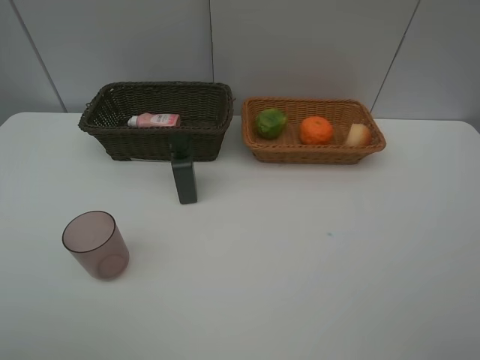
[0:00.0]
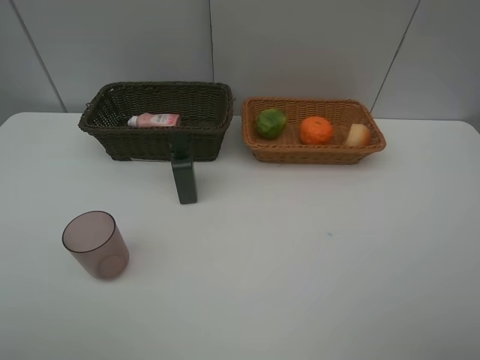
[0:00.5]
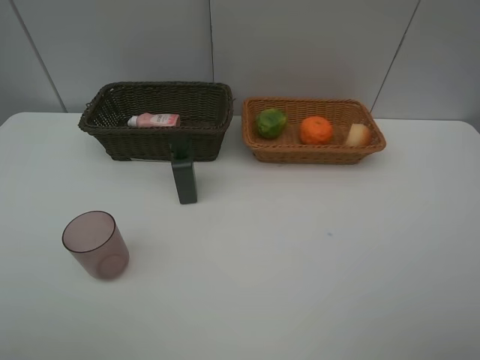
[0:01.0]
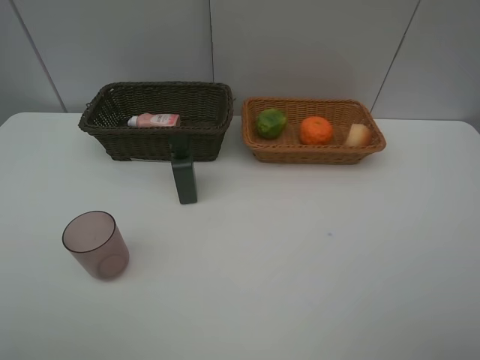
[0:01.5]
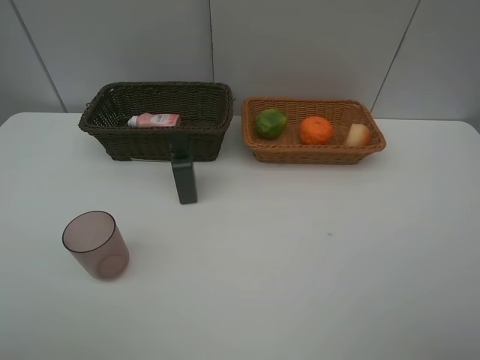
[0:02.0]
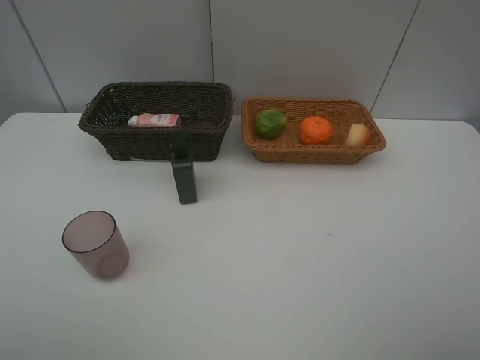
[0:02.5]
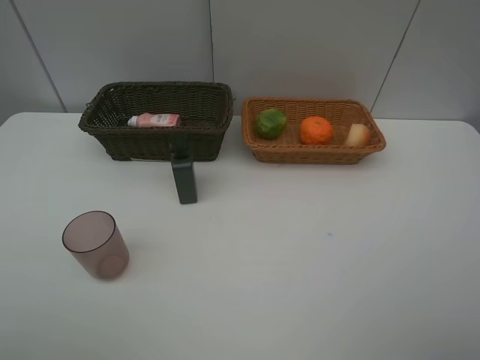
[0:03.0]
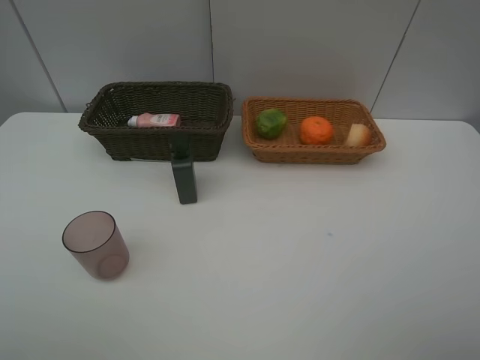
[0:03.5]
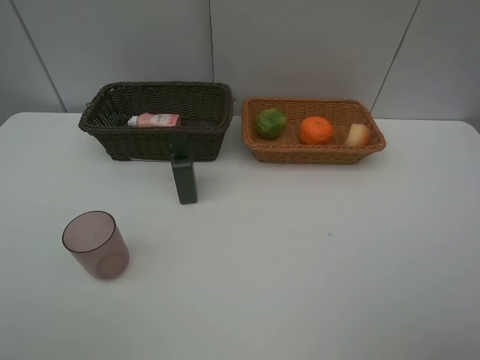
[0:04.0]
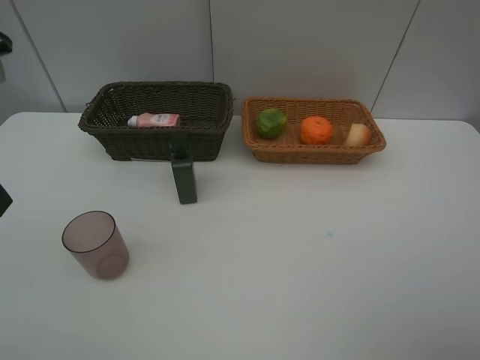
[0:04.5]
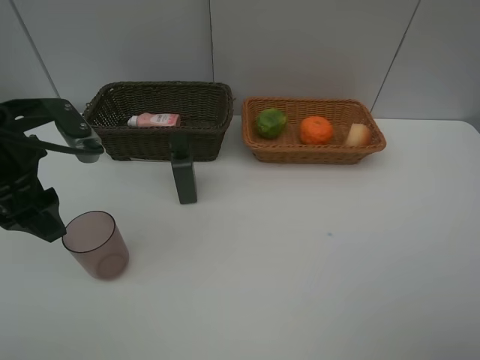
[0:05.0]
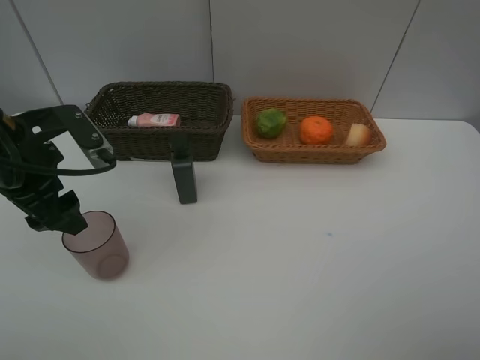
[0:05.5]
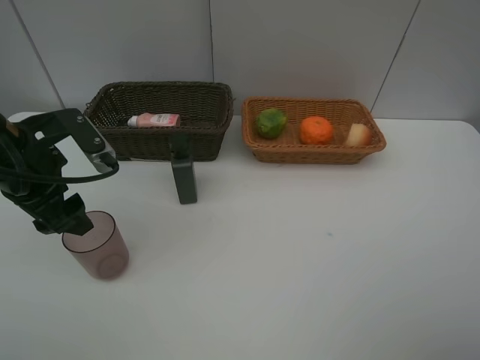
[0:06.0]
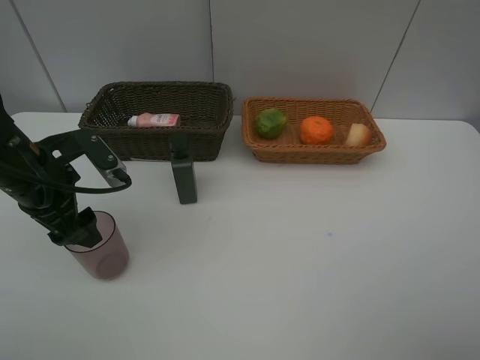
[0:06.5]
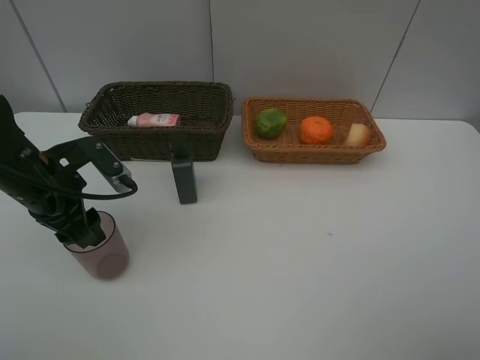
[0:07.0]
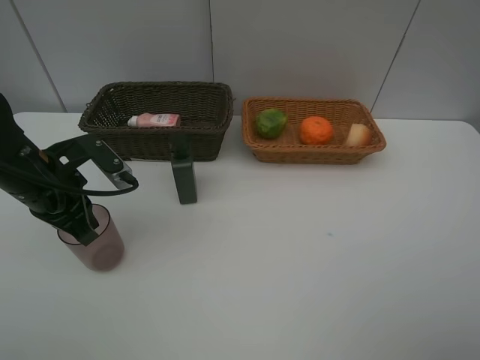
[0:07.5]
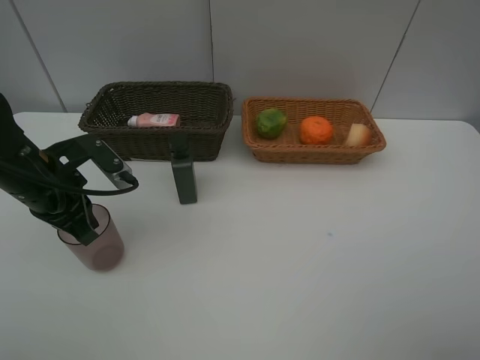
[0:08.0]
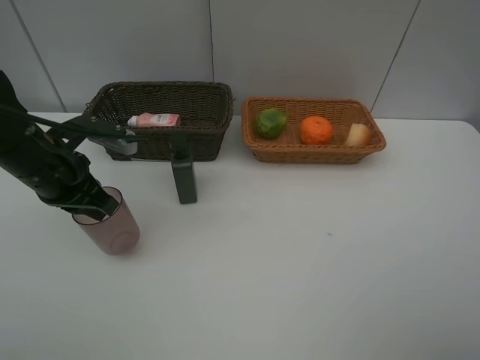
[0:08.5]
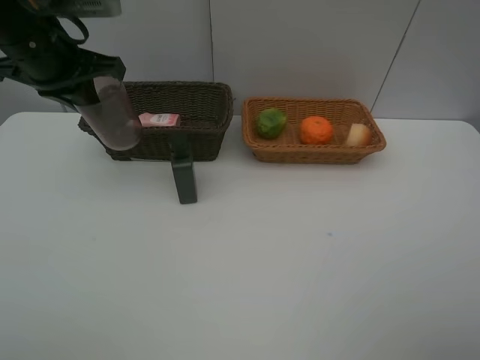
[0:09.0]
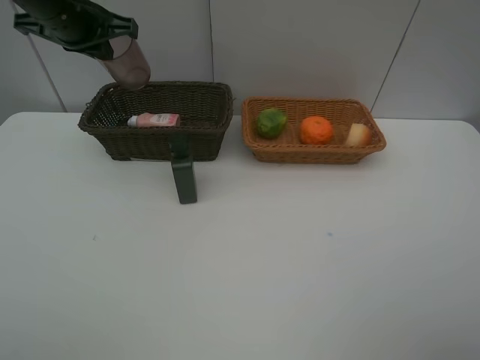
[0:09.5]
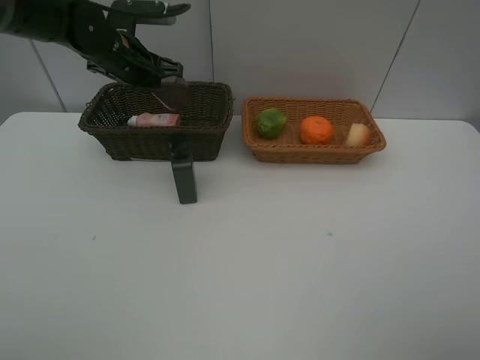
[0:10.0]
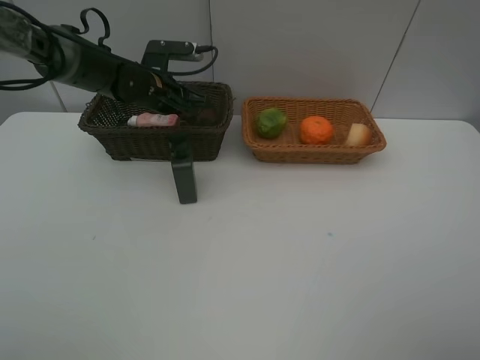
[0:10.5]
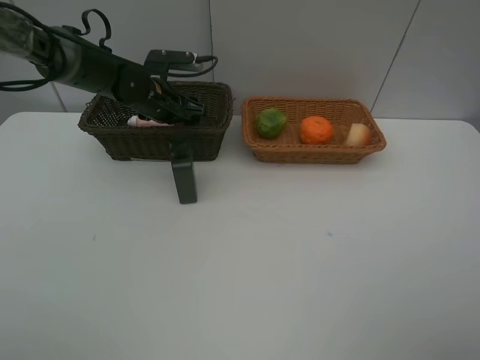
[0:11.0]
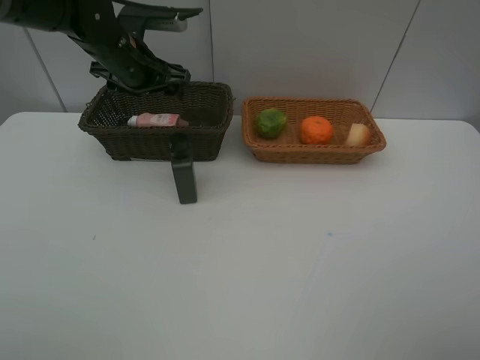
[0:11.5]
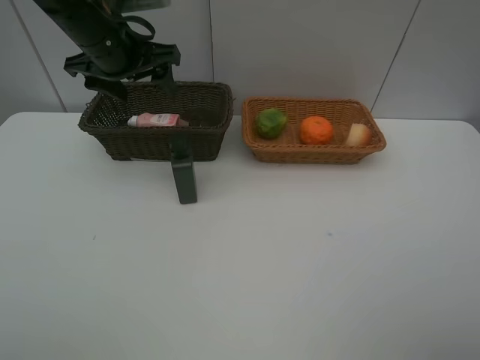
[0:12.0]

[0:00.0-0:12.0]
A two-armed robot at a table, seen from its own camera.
Task of the whole recording: place multiple objects separately in different baskets.
0:04.0 to 0:06.0: The left gripper goes about 20 cm forward and downward.
0:06.0 to 0:08.0: The left gripper closes its fingers.
0:08.0 to 0:10.0: The left gripper heads forward, covering about 20 cm.
0:10.0 to 0:12.0: The left gripper travels backward and upward by approximately 10 cm, and opens up.

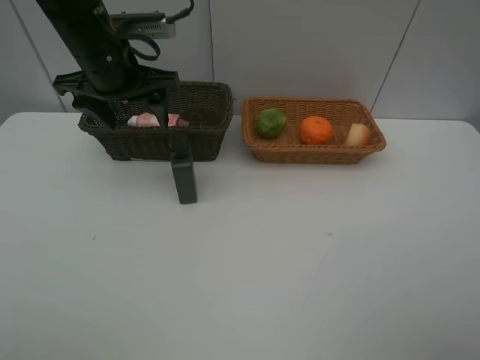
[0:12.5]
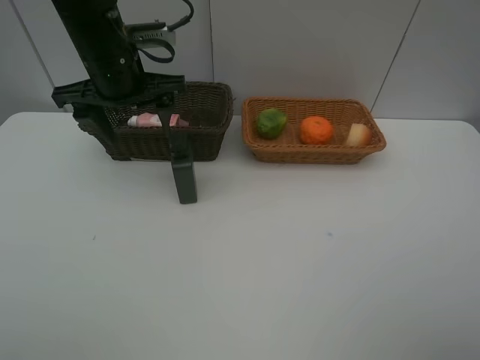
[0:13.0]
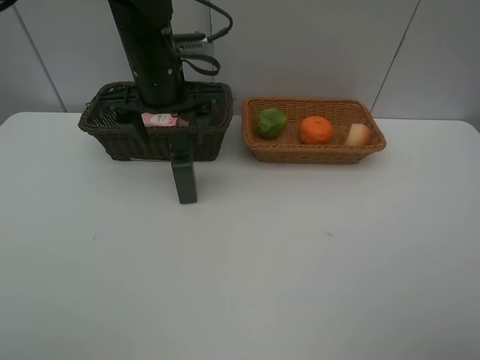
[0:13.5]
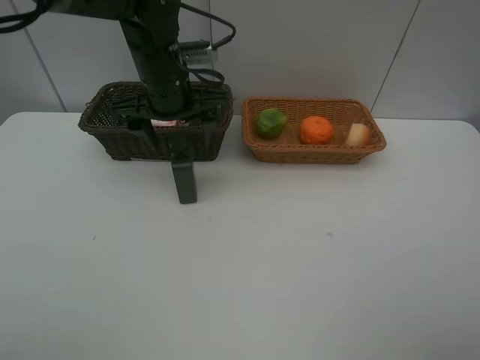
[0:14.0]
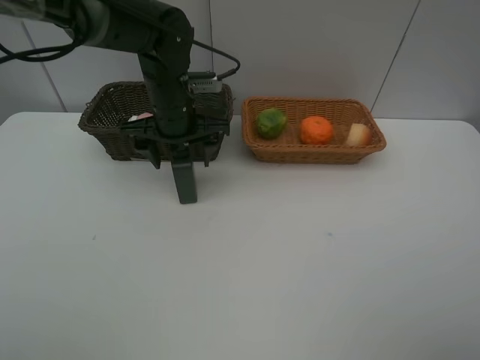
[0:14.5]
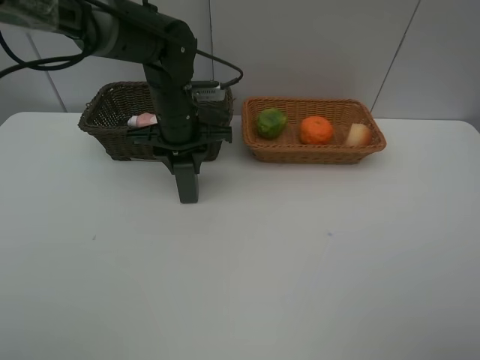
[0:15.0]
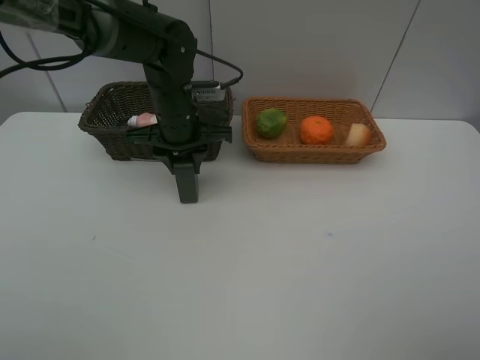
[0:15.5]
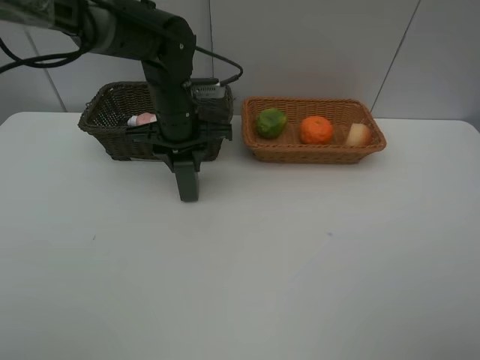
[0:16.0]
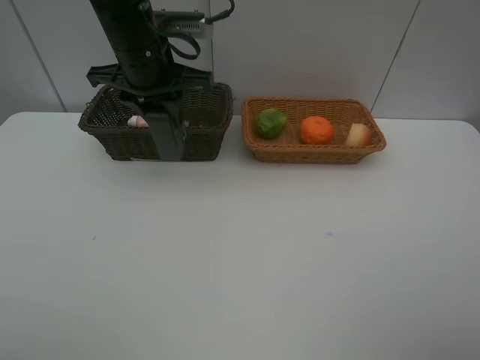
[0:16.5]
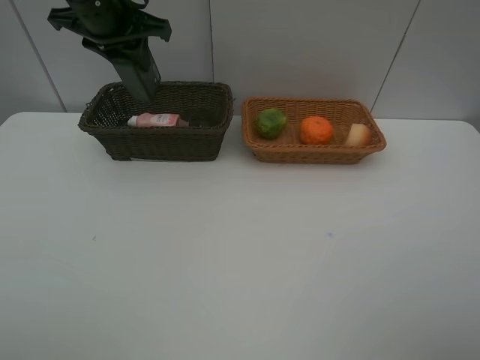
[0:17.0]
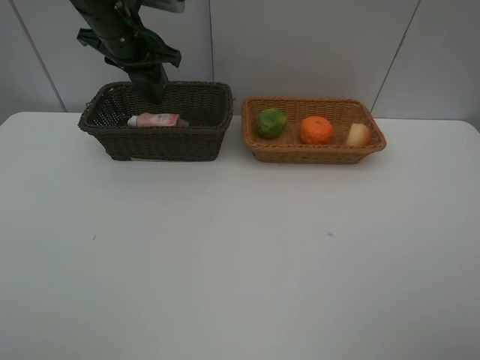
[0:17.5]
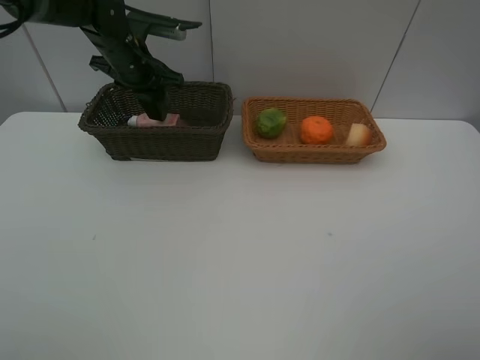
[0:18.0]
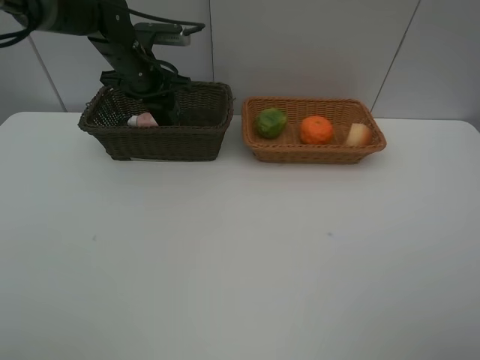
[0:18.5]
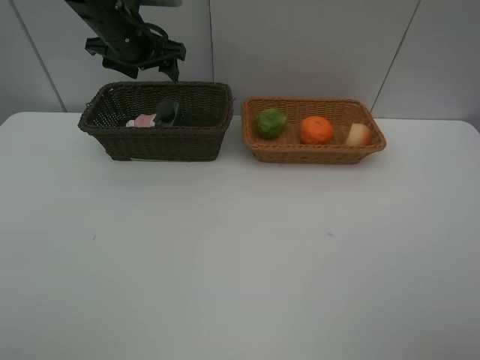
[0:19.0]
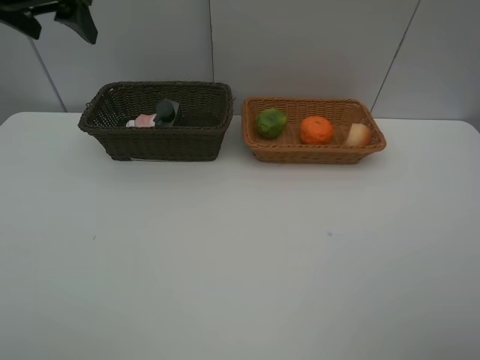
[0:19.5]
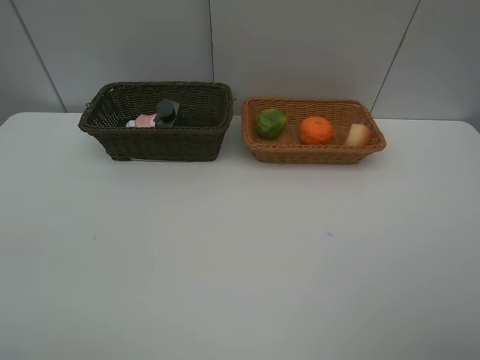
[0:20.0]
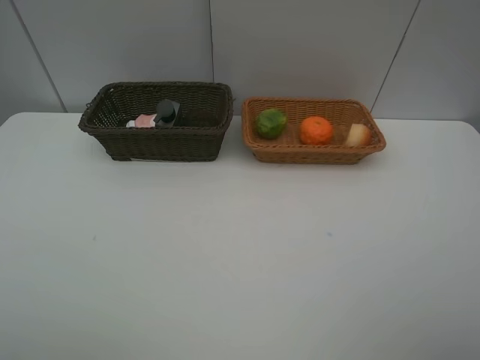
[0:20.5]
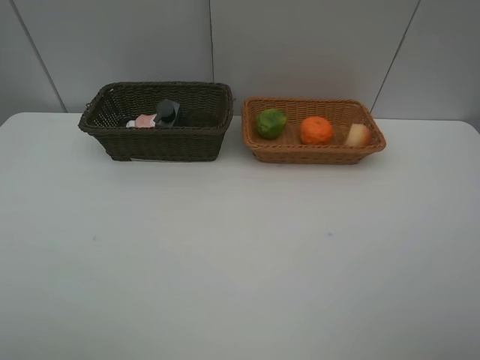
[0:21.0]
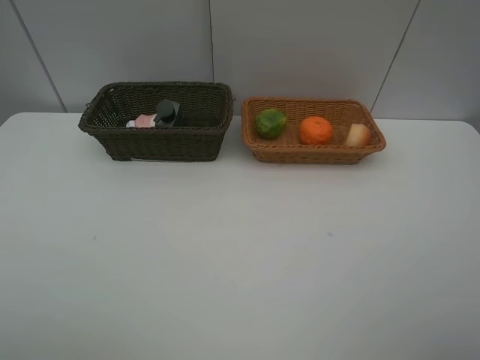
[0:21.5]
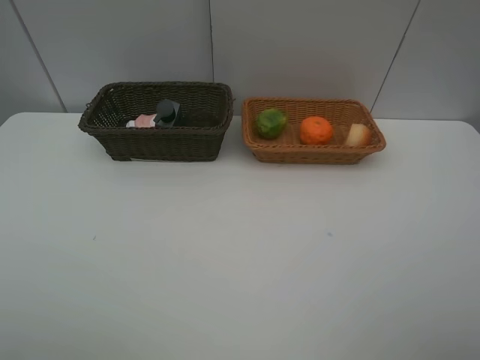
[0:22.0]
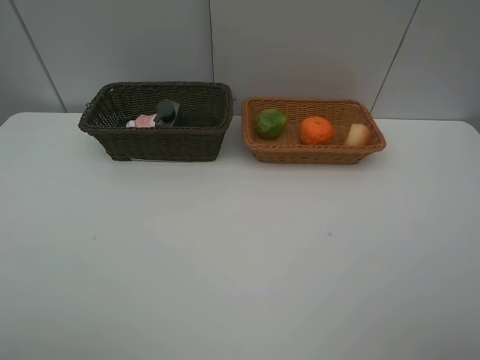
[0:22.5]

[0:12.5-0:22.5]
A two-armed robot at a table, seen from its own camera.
Task of the whole recording: place multiple objects separately in different baskets.
0:12.5 to 0:14.5: The left gripper travels downward and to the right by roughly 10 cm.
0:14.5 to 0:16.5: The left gripper moves upward, about 10 cm, and closes up.
0:16.5 to 0:18.5: The left gripper heads forward and downward, covering roughly 15 cm.
0:18.5 to 0:20.5: The left gripper travels backward by roughly 50 cm, and opens up.

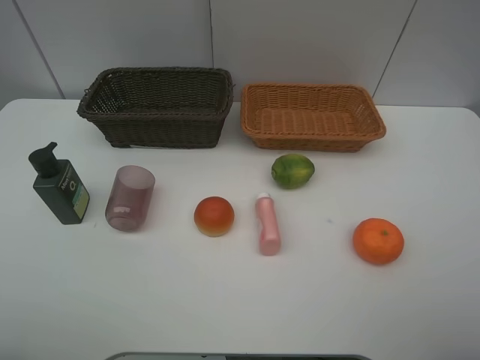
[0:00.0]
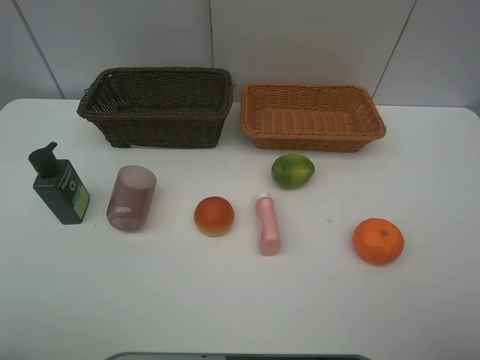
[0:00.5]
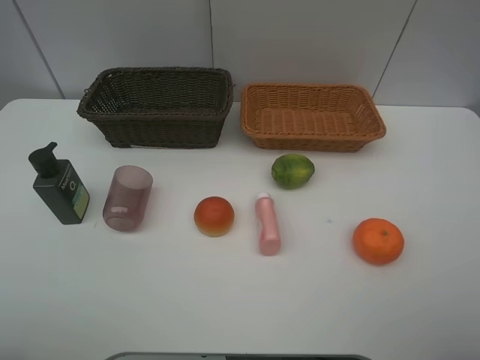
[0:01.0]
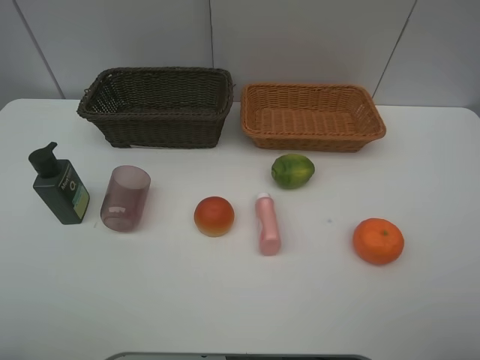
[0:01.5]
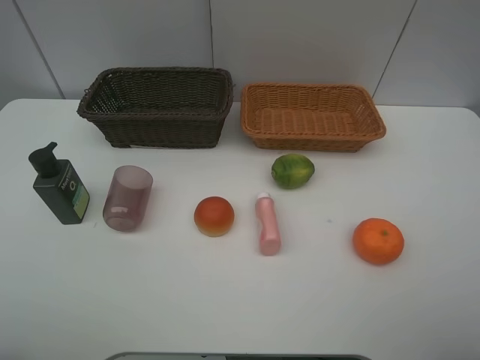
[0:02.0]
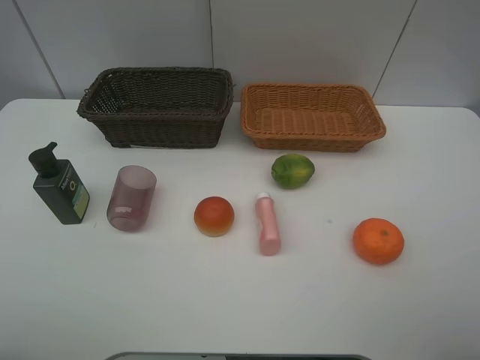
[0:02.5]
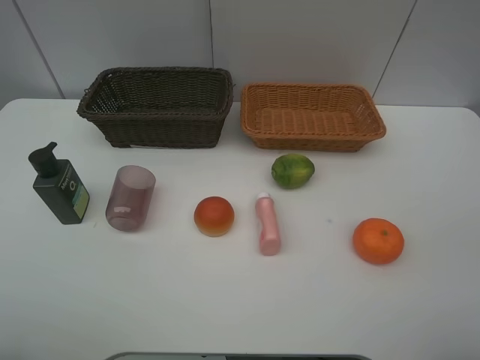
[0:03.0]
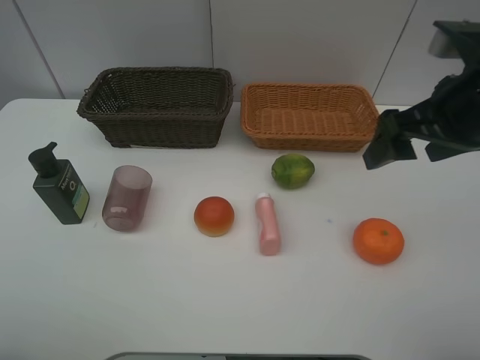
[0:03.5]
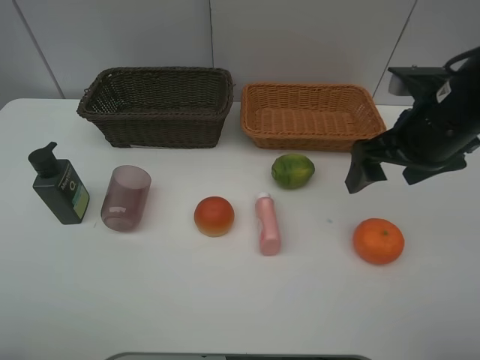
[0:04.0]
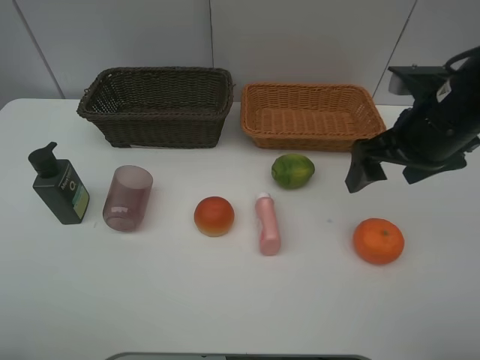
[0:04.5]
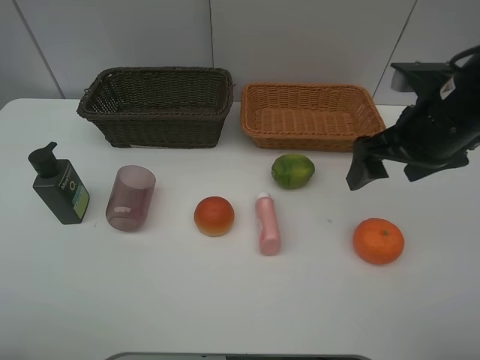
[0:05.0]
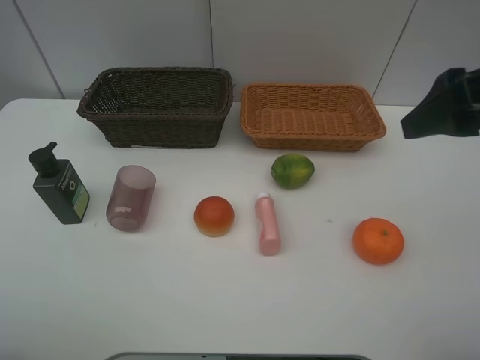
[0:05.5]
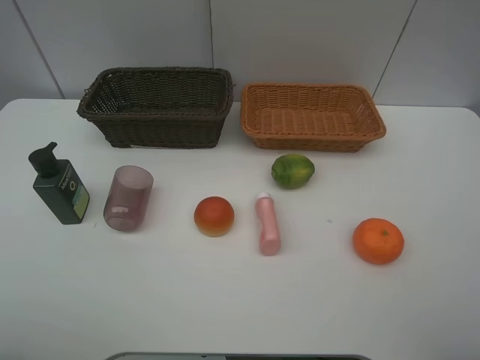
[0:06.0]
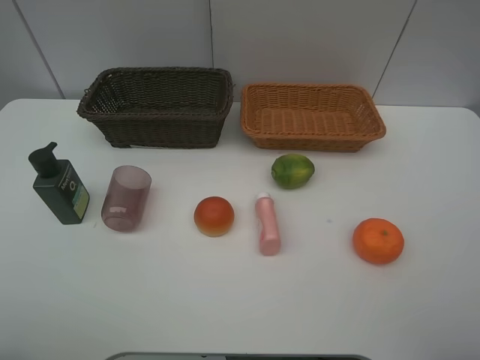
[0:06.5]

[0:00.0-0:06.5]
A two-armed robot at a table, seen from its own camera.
Task of the whole recording: place multiple objects separately in different baskets.
0:00.0 to 0:02.0: Neither gripper changes place.
0:02.0 to 0:04.5: The right gripper heads forward, covering approximately 25 cm.
0:04.5 to 0:06.5: The right gripper heads backward, upward and to the right, covering approximately 20 cm.
